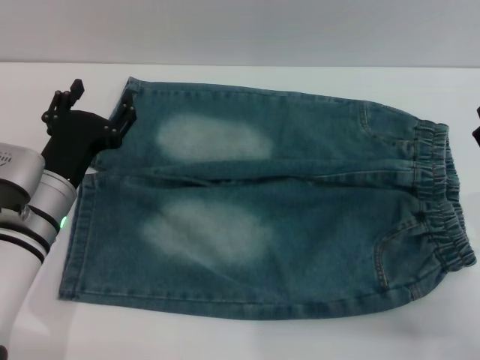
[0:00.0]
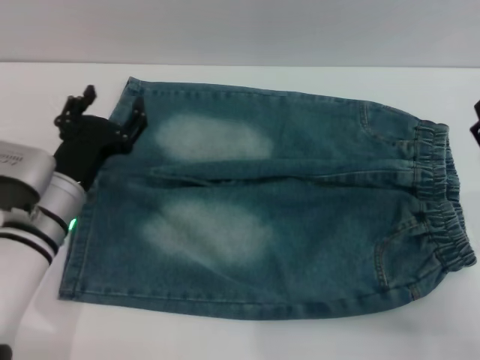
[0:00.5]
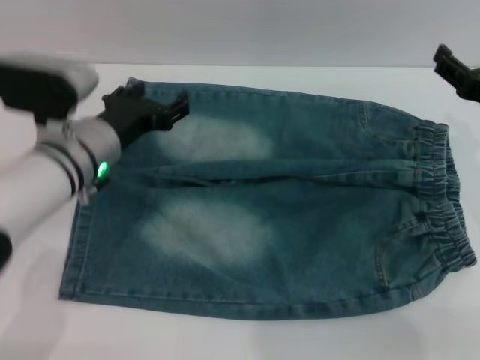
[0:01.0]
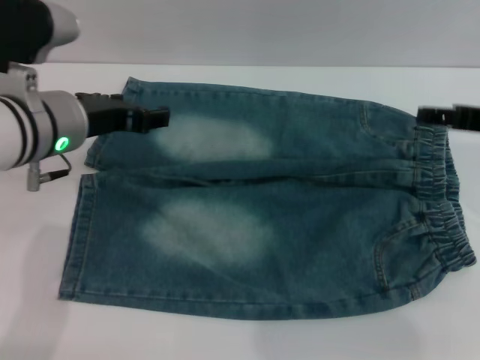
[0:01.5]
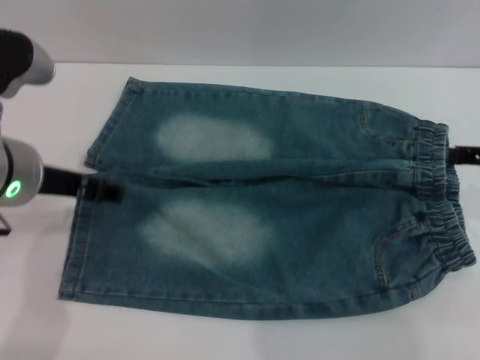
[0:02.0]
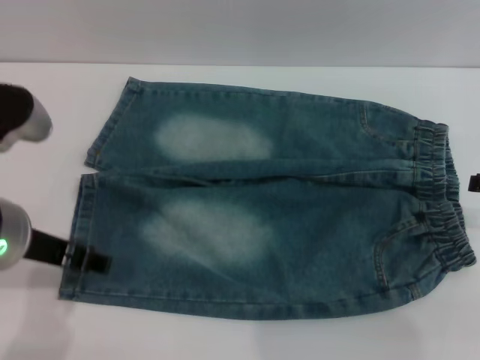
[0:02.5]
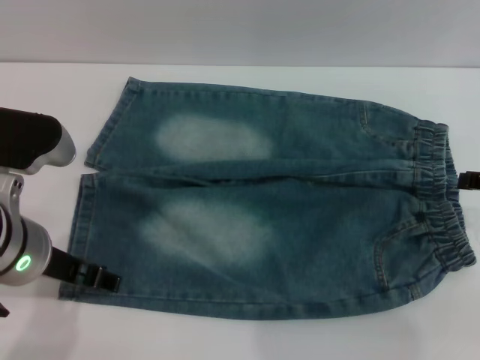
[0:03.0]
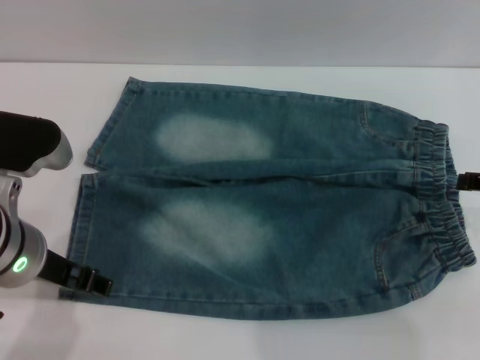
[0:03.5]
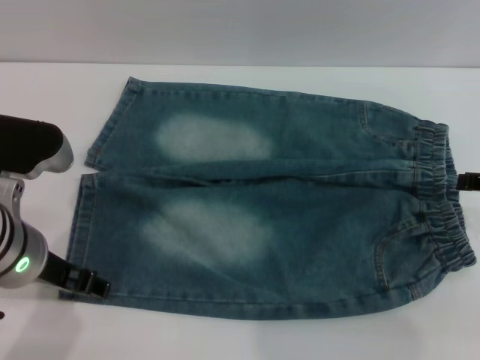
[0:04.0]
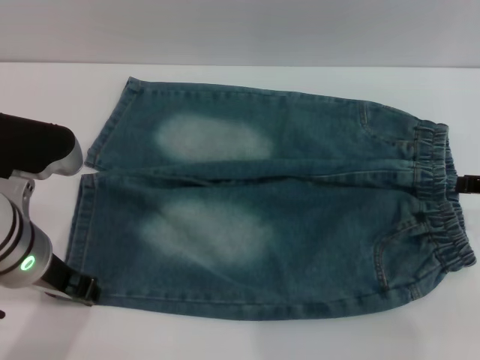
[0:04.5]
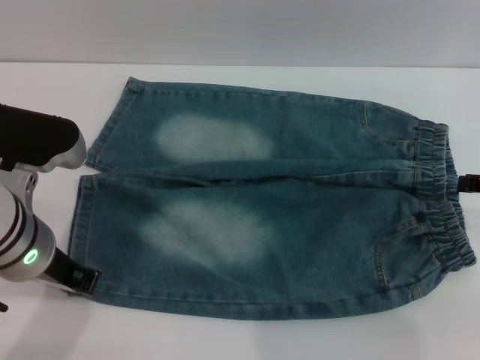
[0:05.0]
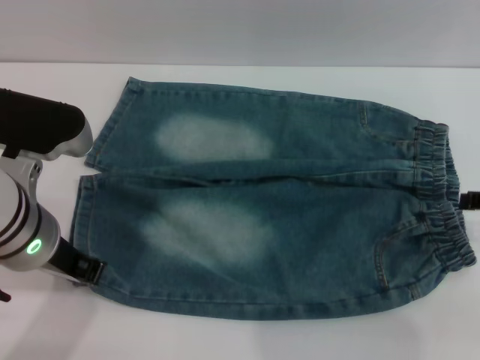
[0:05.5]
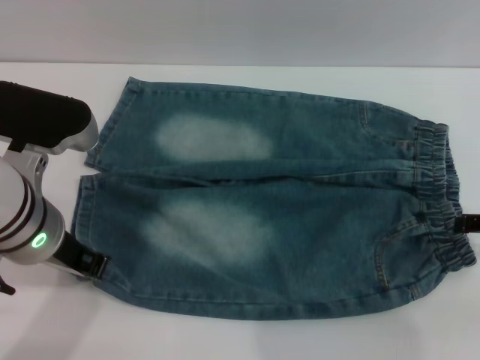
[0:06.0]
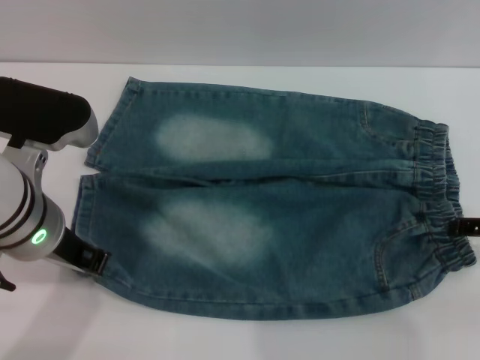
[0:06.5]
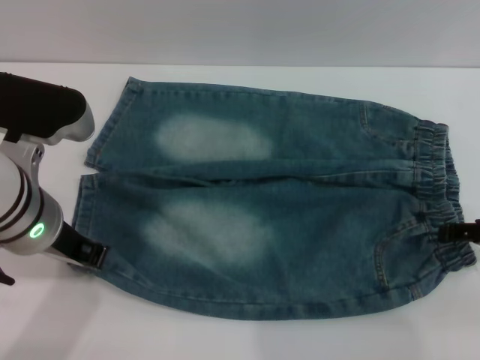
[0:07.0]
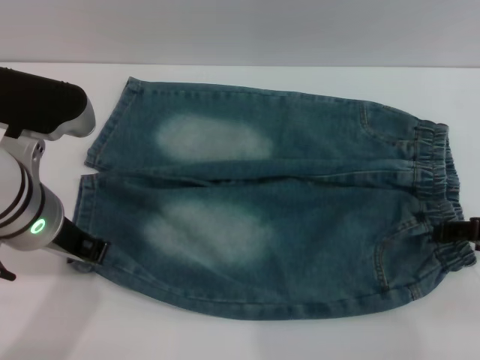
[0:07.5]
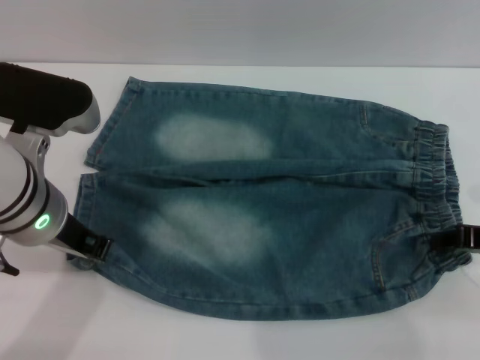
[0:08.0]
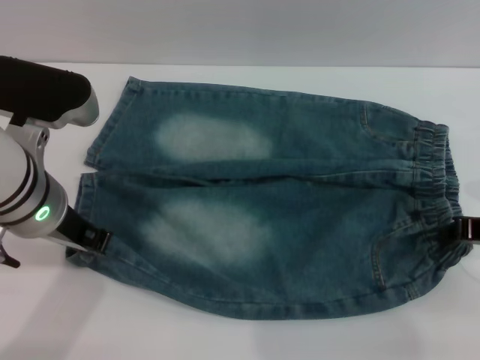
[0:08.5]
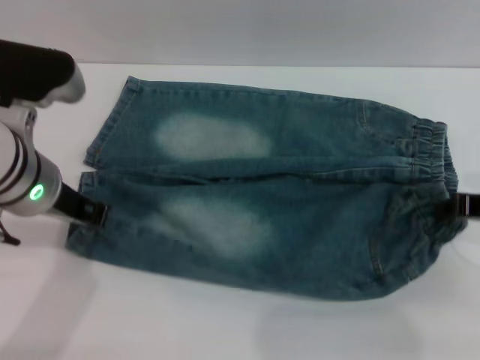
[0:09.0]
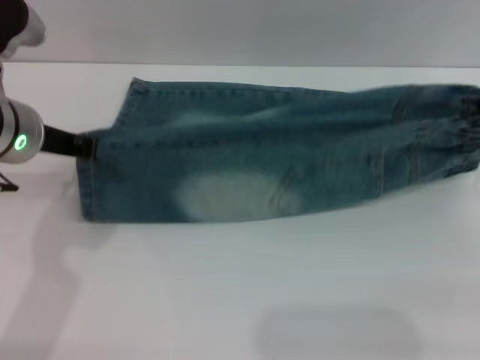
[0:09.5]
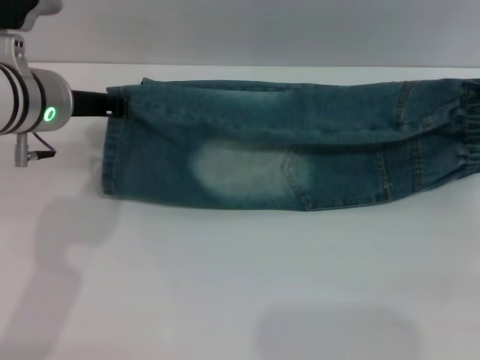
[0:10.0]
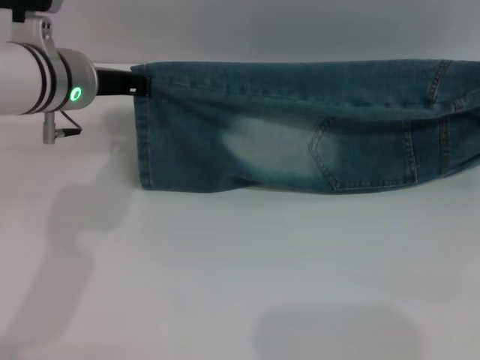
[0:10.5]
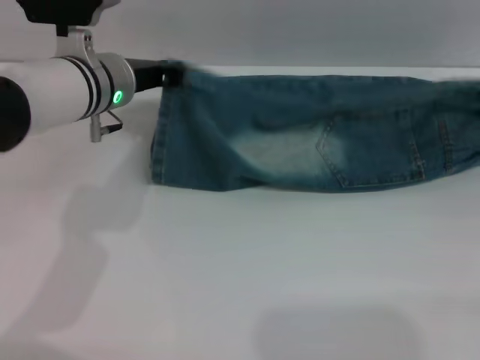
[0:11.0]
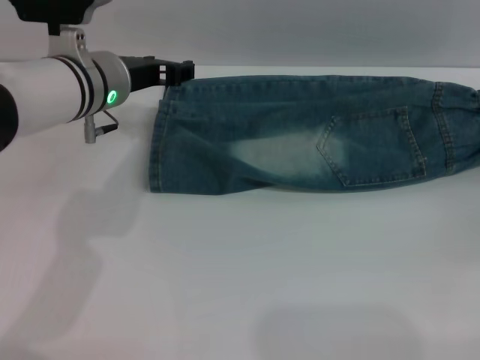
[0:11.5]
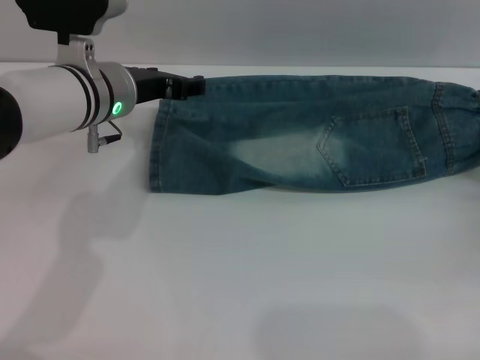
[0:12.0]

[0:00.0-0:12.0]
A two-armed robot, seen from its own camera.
Step, 0:00.0 to 0:11.0: Fold the bottom of the pants upward with both grippers.
0:00.0 to 0:02.0: Both grippers travel together upward, roughly 15 cm.
0:02.0 to 0:04.0: The left gripper ends up roughly 5 cm from where it was.
0:04.0 to 0:06.0: The left gripper closes.
0:06.0 to 0:08.0: The right gripper closes.
0:08.0 to 0:10.0: The two grippers go some 5 cm forward. The right gripper closes.
0:10.0 to 0:12.0: The right gripper shifts approximately 10 cm downward, and opens; the left gripper shifts by about 5 cm, and opens its fingers.

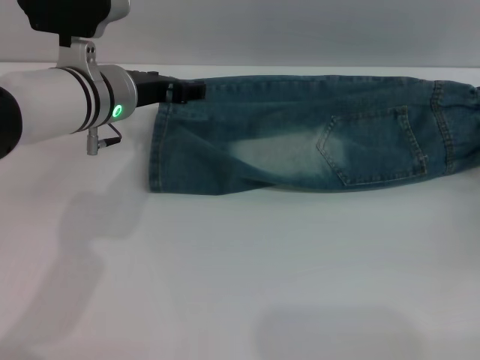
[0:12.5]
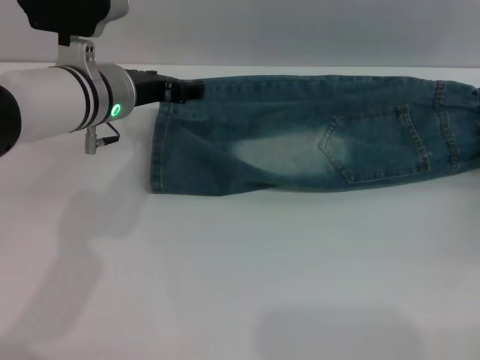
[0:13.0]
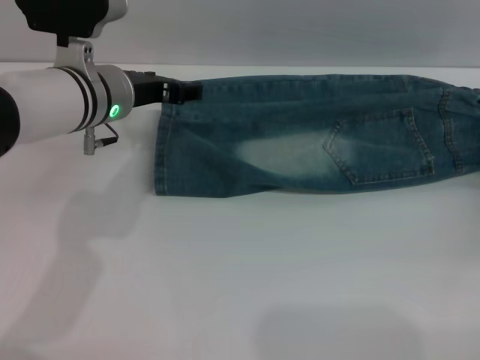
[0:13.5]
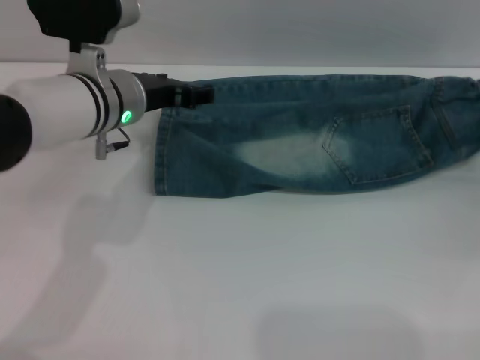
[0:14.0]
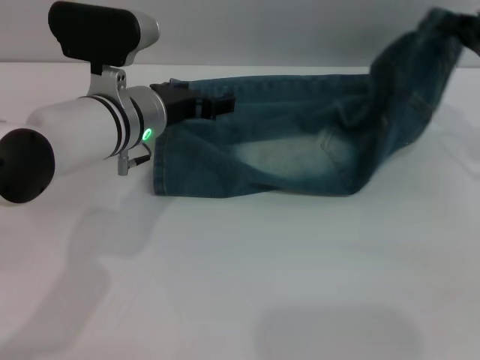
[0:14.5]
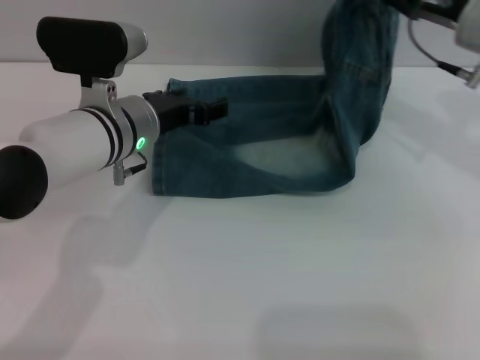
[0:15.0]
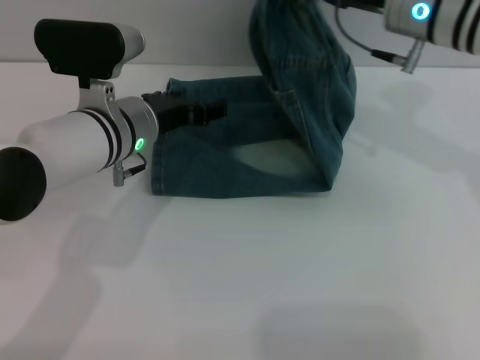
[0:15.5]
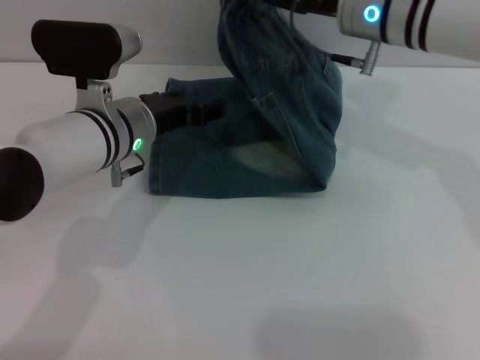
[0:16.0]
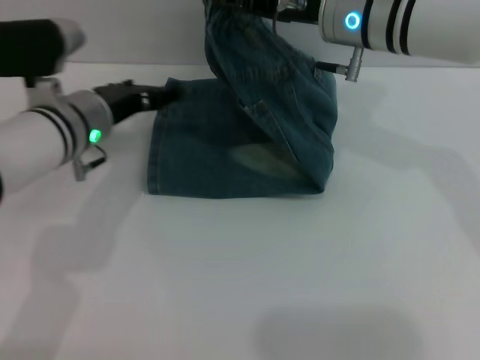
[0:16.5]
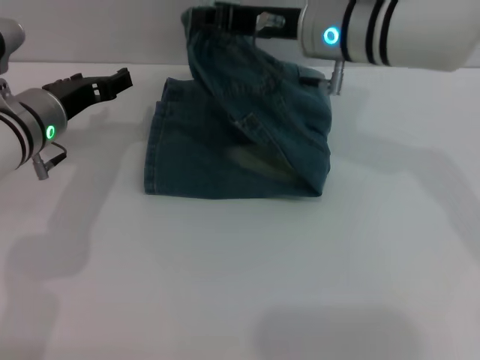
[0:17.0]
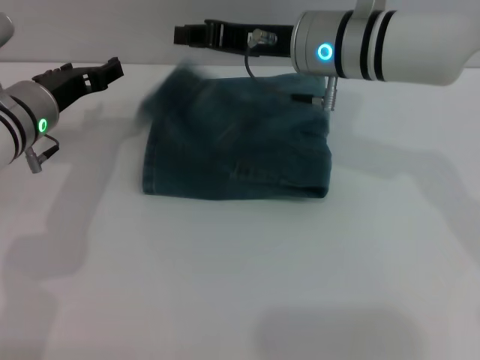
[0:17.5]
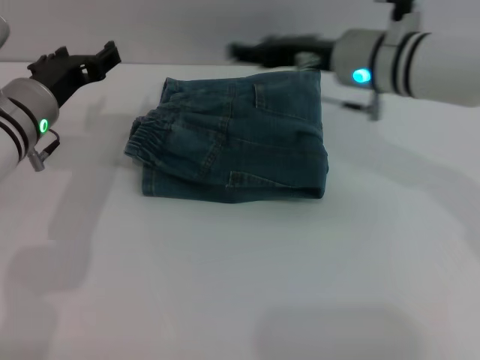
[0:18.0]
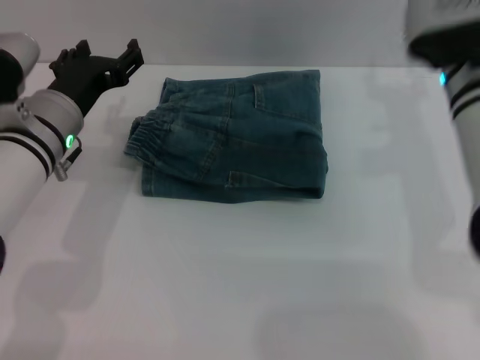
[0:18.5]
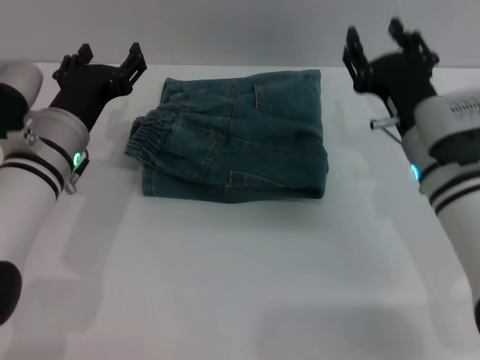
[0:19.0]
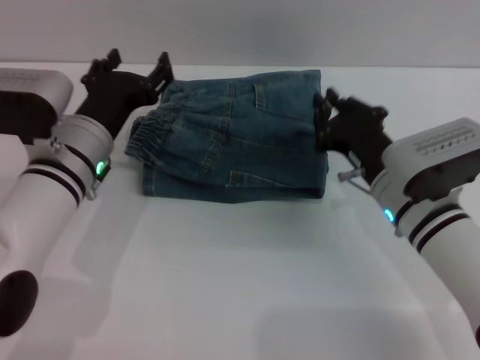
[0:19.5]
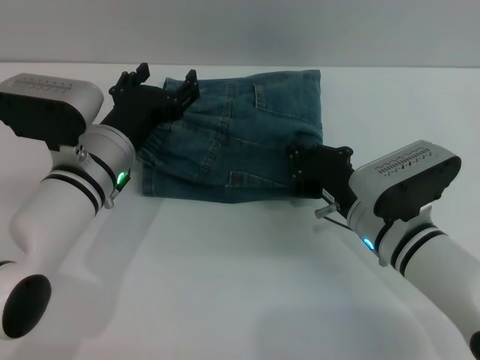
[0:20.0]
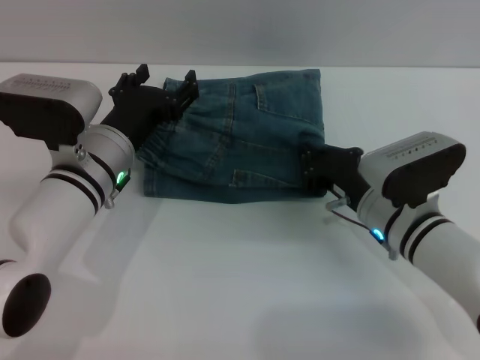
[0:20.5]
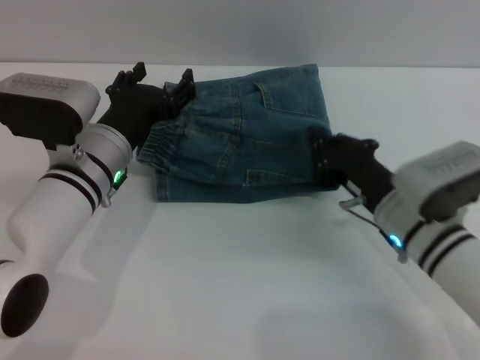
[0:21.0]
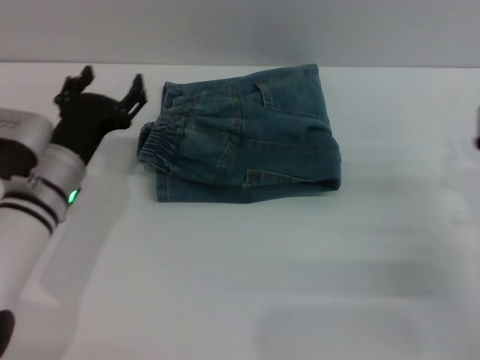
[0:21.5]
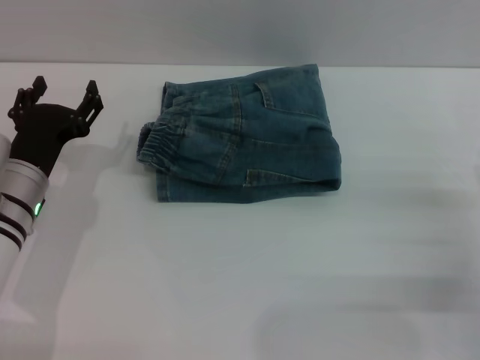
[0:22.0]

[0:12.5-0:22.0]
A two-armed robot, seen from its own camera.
Step, 0:12.5 to 0:17.5: Fold the pants from right to left with the right gripper.
Step, 0:18.0 to 0:21.0: Place the folded trousers onto the center area with the right grippers.
0:12.5 to 0:14.5: The right gripper is displaced upward, to the left and forward by roughly 15 cm, and closes its fingers.
0:14.5 to 0:16.5: The left gripper is displaced to the left by some 5 cm, while the right gripper is displaced to the left by approximately 20 cm.
0:16.5 to 0:18.0: The right gripper opens its fingers.
0:18.0 to 0:20.0: The left gripper goes roughly 5 cm to the right; the right gripper travels downward and backward by roughly 20 cm, and closes its fingers.
0:20.0 to 0:22.0: The right gripper travels to the right by roughly 15 cm, and opens up, while the left gripper travels to the left by some 10 cm.
